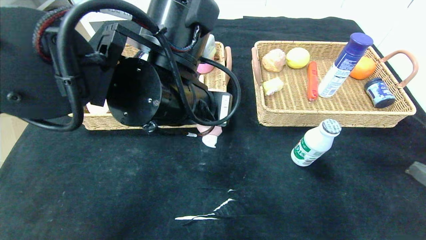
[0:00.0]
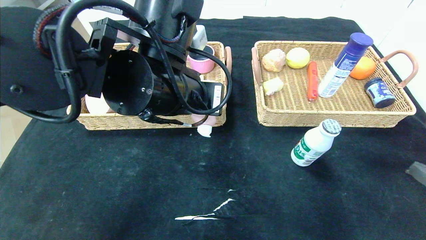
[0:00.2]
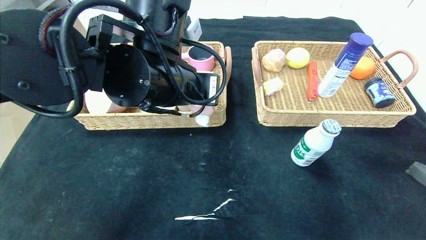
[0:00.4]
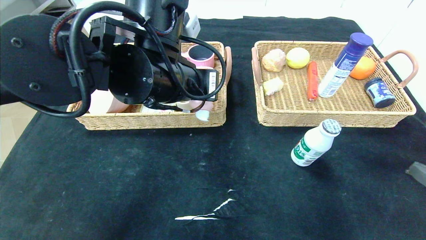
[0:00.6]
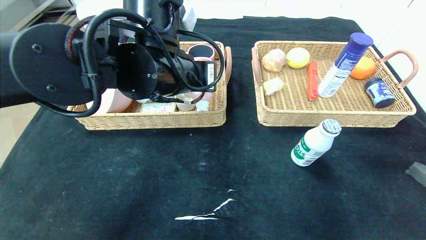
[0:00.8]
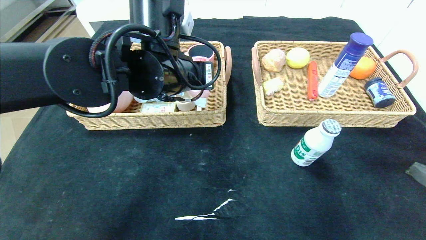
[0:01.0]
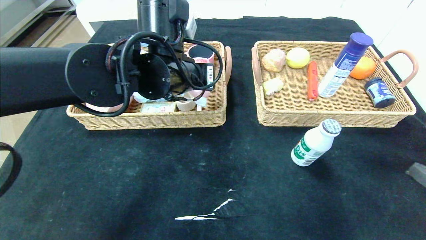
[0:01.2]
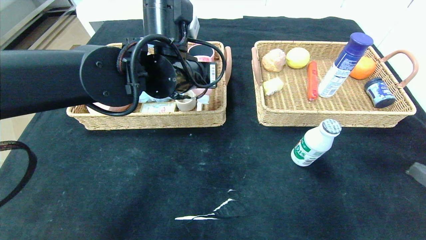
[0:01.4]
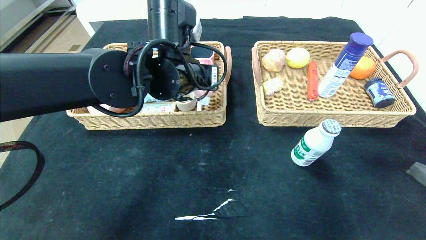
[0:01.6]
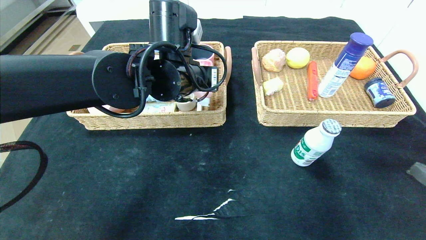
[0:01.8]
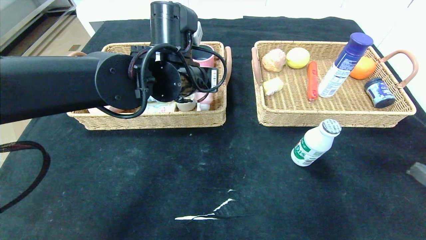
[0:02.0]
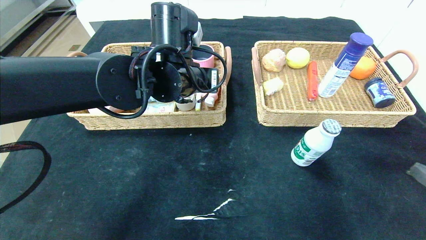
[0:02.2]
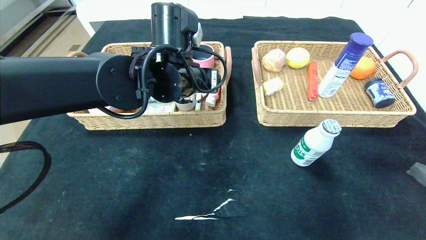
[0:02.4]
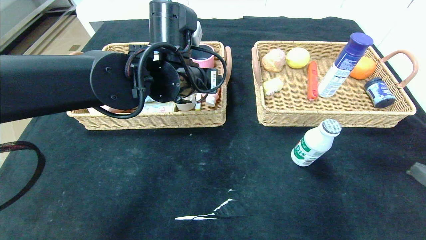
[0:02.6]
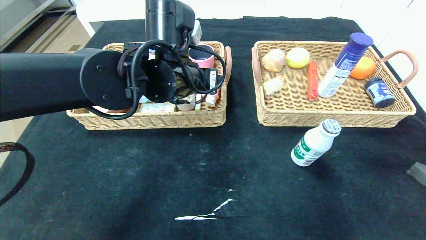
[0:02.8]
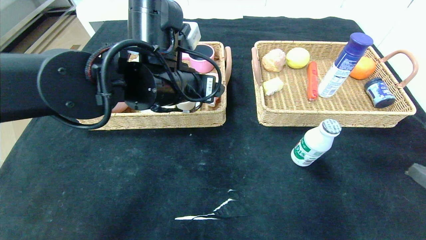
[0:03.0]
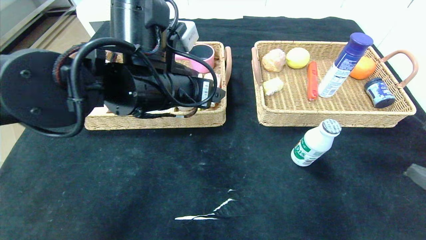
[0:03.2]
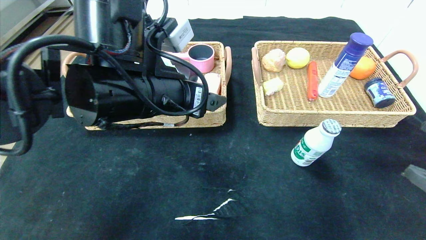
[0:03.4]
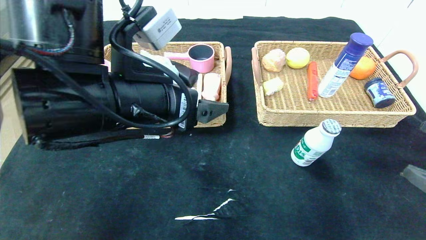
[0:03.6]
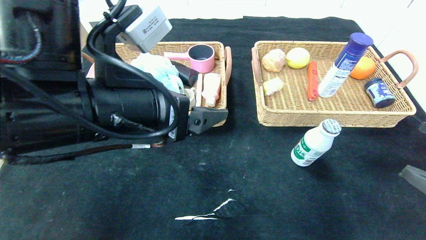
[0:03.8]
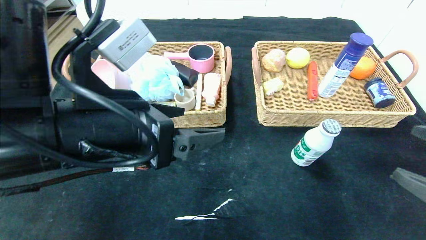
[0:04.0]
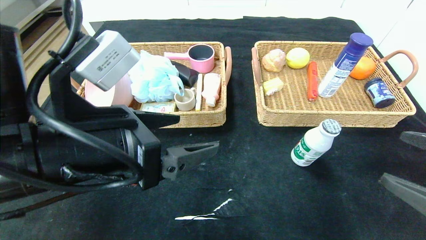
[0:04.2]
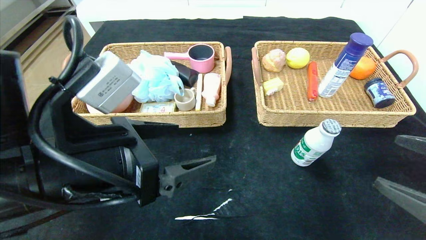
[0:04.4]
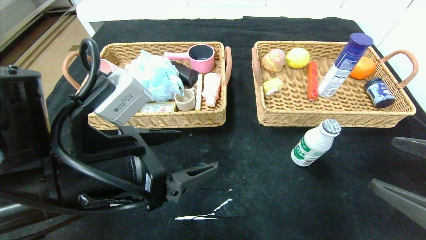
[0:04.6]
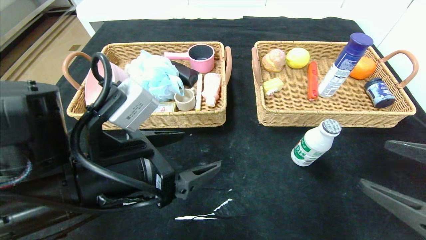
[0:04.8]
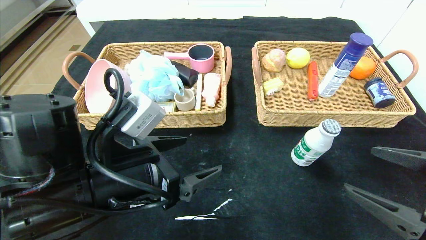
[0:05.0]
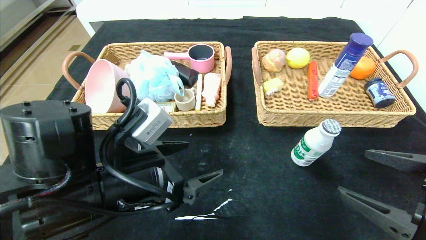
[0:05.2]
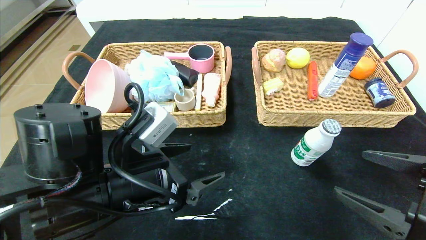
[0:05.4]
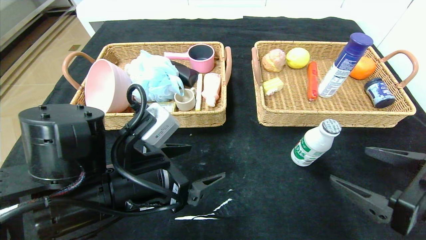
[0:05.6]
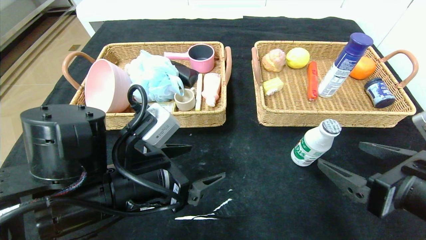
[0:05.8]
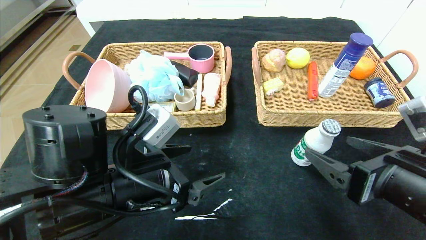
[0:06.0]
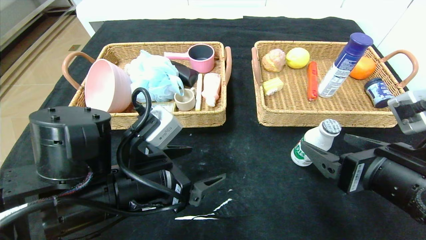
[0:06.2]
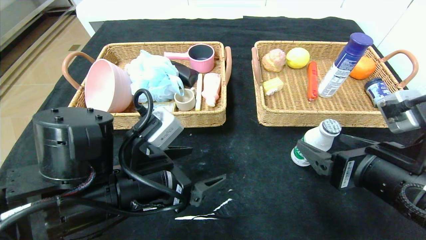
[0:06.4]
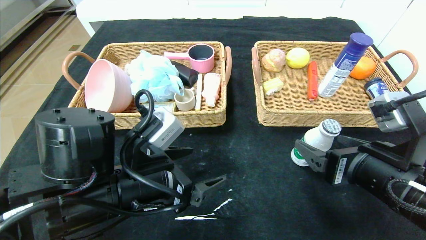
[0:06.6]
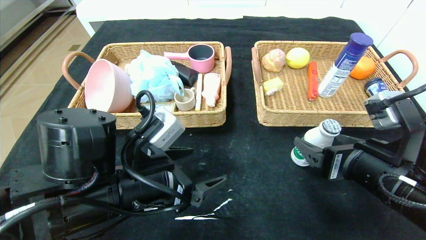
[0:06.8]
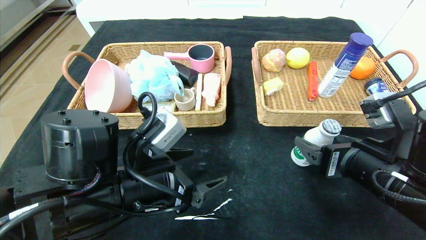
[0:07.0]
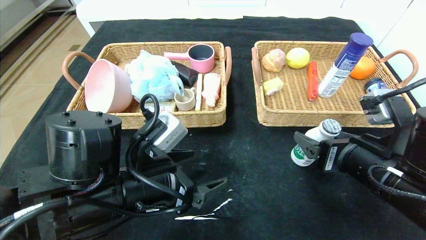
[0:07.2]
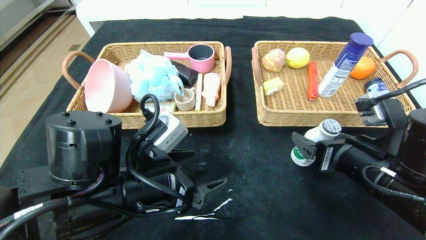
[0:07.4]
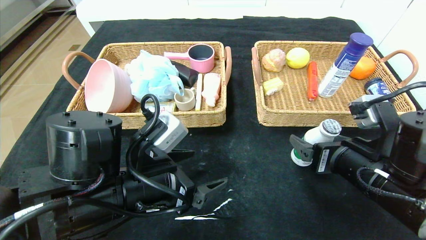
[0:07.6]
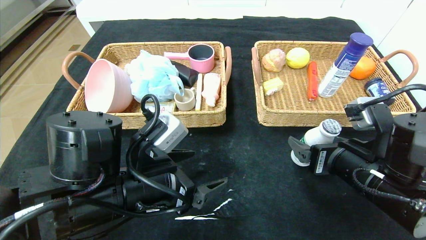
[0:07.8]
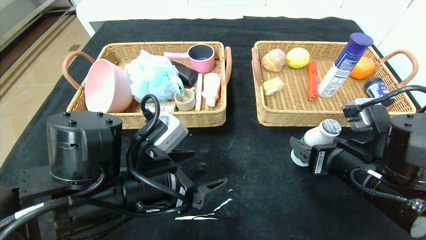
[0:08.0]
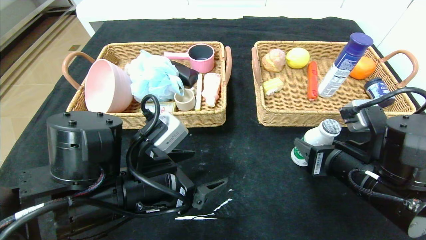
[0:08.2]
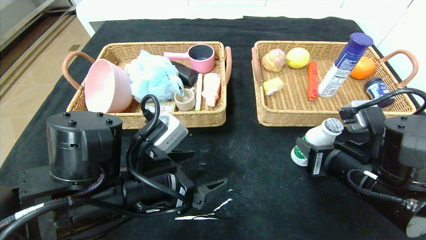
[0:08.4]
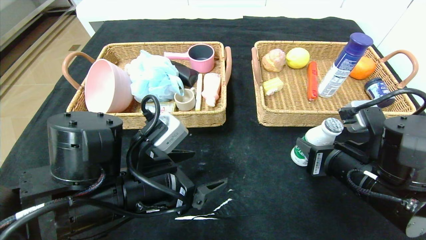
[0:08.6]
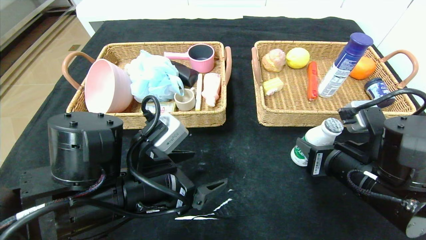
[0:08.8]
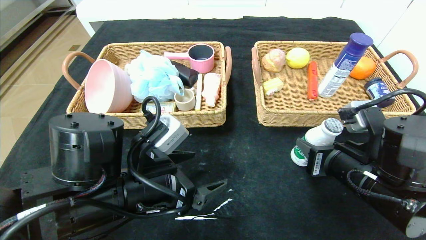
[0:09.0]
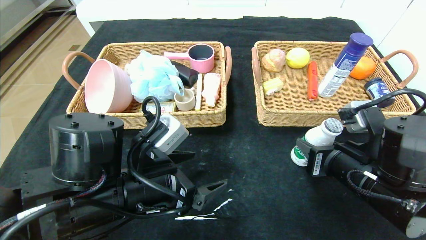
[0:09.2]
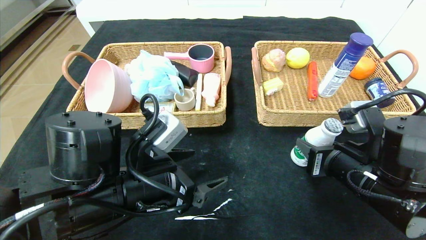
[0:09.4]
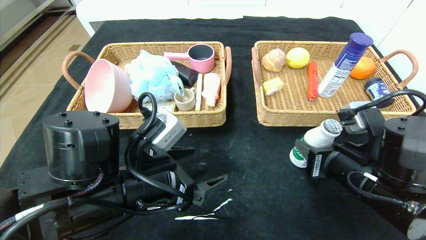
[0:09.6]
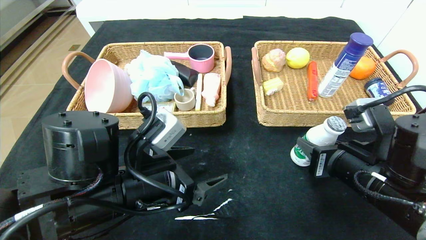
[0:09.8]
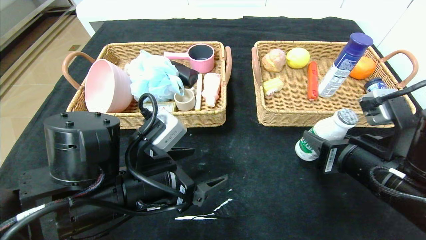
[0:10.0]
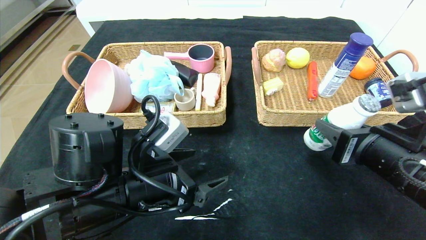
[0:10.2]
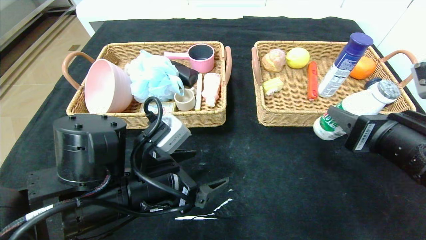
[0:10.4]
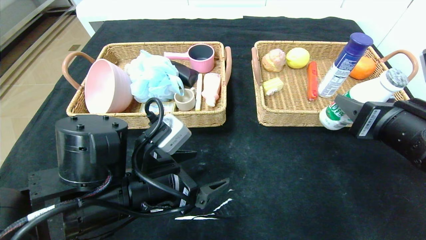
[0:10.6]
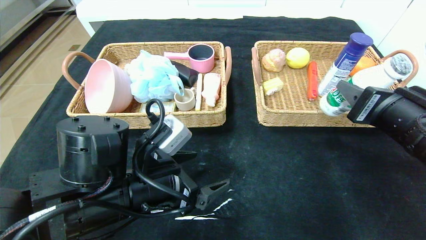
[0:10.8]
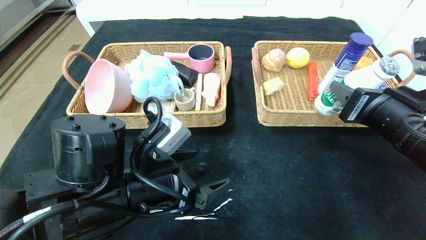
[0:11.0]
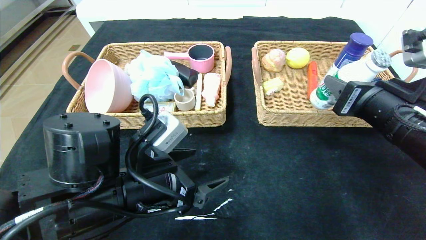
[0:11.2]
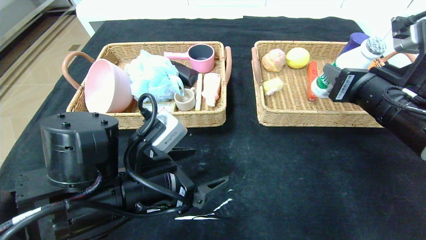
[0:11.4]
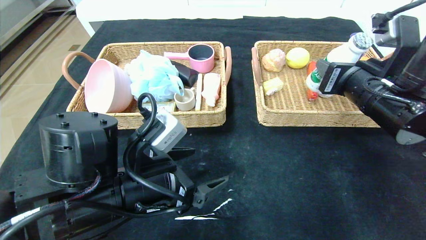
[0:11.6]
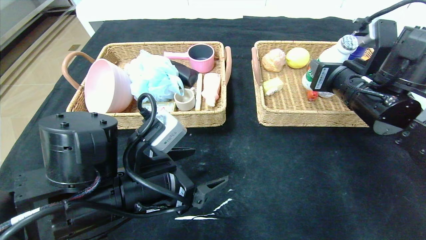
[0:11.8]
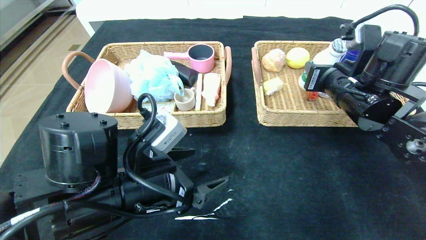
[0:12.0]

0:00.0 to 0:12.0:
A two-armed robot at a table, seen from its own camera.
Step, 0:00.0 to 0:02.4: Grasp the detergent and put it in the left basket.
0:00.0 to 0:01.6: The left gripper is displaced forward by roughly 10 cm.
0:01.6 to 0:03.0: The left gripper opens up.
0:03.0 to 0:04.4: The left gripper moves backward and to the left, about 15 cm.
0:04.4 to 0:06.0: The right gripper travels to the left by roughly 10 cm, while the left gripper shifts some 5 cm downward.
0:06.0 to 0:07.6: The right gripper heads forward, covering approximately 5 cm.
0:07.6 to 0:09.0: The right gripper closes up.
0:09.0 to 0:10.4: The right gripper travels upward by roughly 5 cm.
0:10.4 to 0:12.0: The right gripper heads forward, covering some 15 cm.

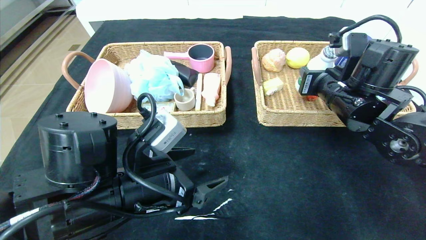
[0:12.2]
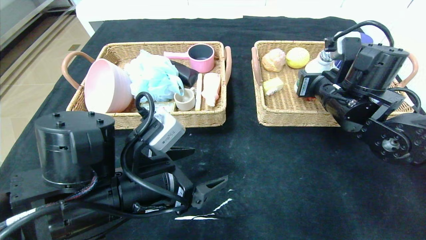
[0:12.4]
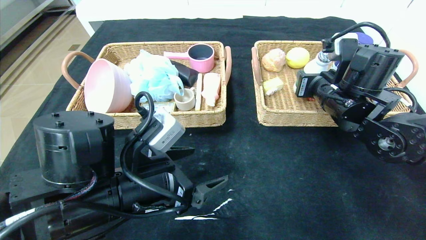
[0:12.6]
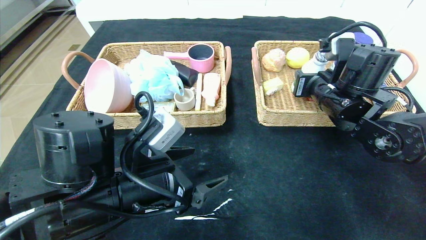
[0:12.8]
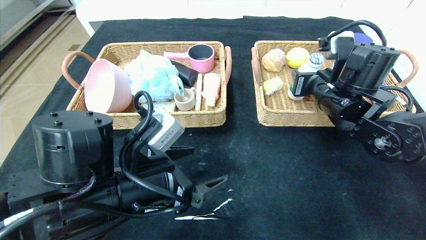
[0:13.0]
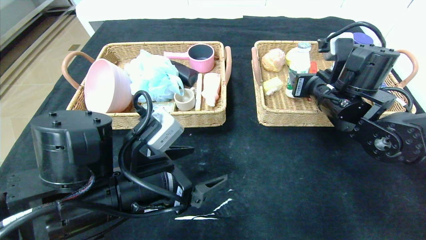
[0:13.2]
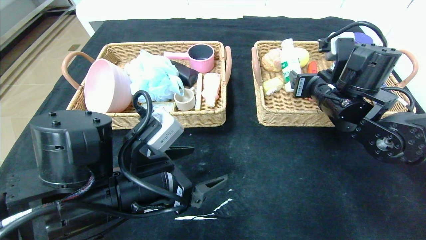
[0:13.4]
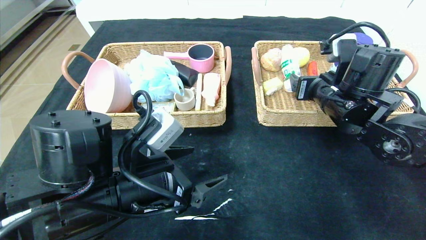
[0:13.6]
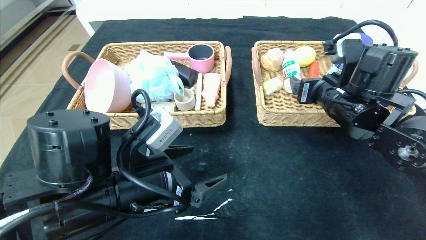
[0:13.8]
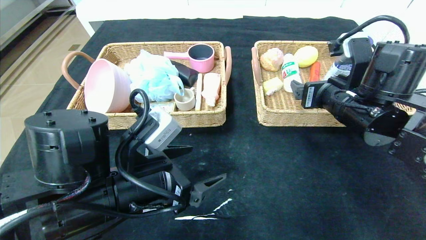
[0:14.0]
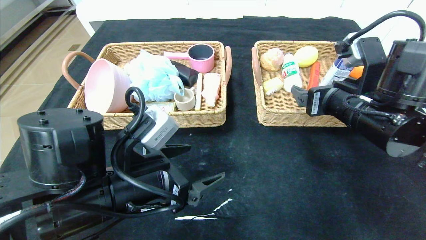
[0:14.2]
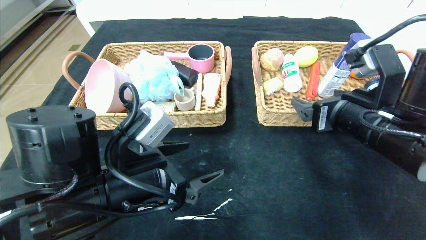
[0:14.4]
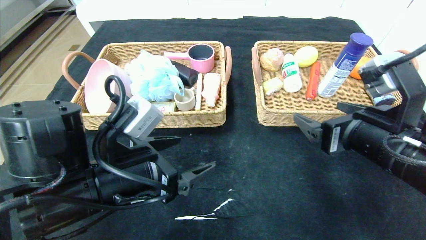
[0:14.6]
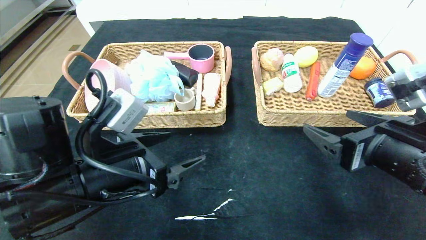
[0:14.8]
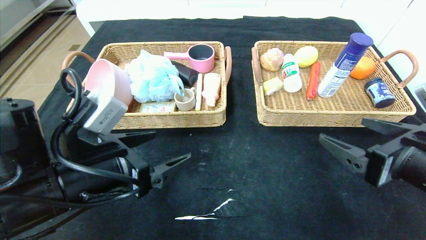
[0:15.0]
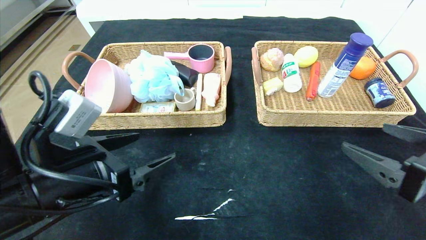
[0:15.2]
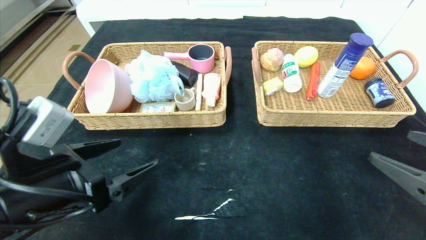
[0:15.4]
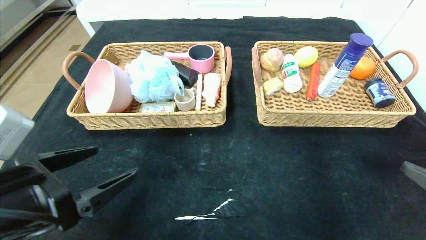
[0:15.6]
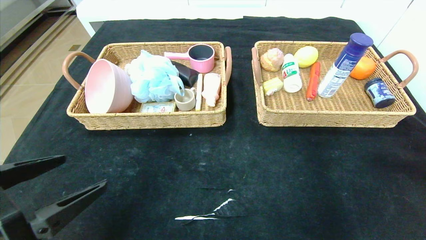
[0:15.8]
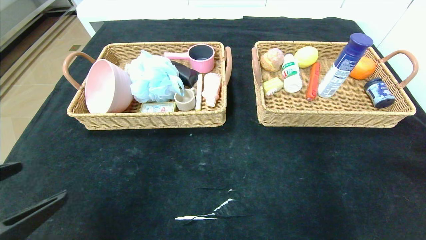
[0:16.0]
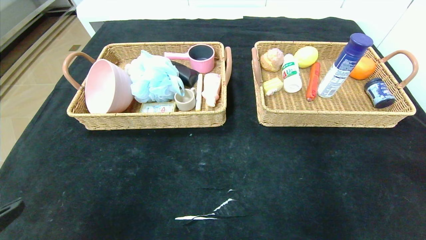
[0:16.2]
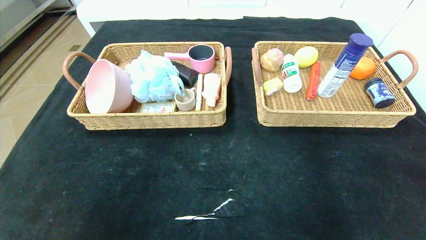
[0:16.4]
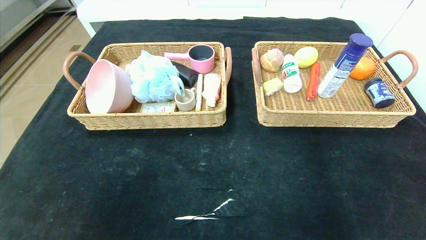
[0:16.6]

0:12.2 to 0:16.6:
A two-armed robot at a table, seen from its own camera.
0:12.2 to 0:13.6: The right gripper opens its fingers.
0:13.6 to 0:15.2: The left gripper moves to the left, some 5 cm, while the right gripper is displaced backward by approximately 20 cm.
0:15.2 to 0:16.6: The left gripper is displaced backward and to the left by roughly 20 cm. The right gripper goes some 20 cm backward.
